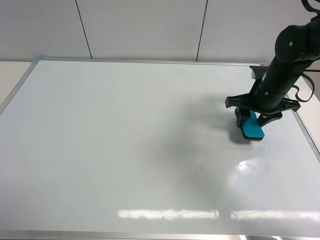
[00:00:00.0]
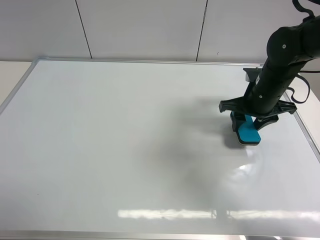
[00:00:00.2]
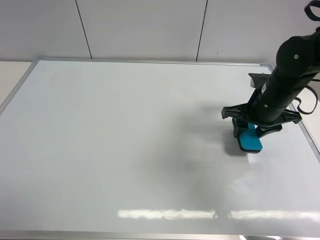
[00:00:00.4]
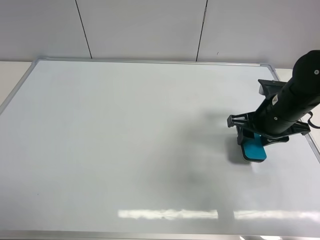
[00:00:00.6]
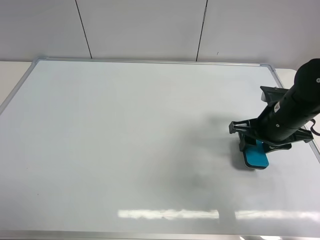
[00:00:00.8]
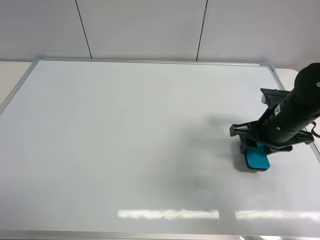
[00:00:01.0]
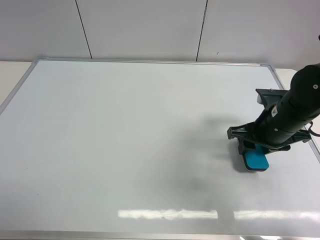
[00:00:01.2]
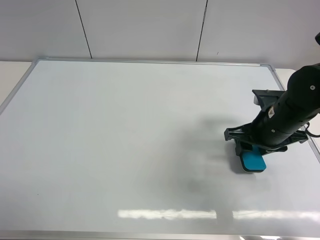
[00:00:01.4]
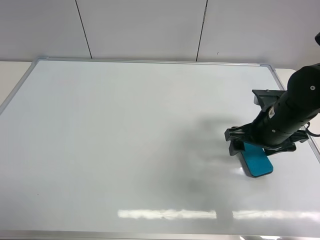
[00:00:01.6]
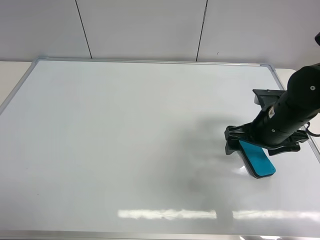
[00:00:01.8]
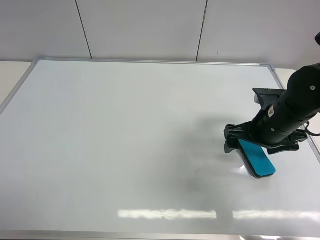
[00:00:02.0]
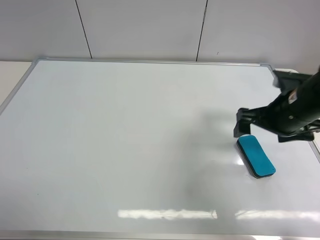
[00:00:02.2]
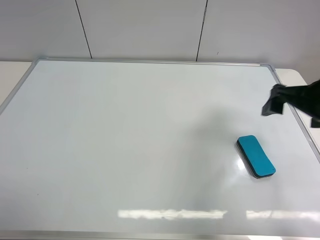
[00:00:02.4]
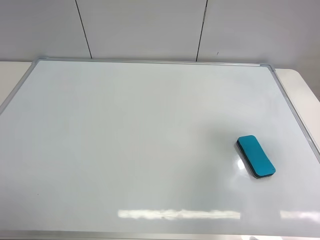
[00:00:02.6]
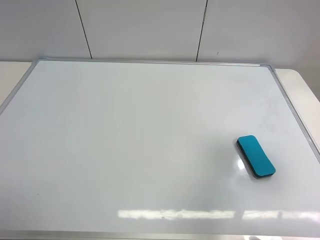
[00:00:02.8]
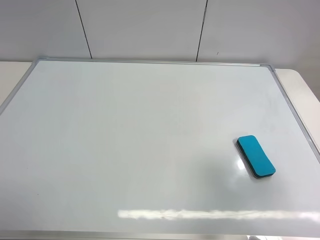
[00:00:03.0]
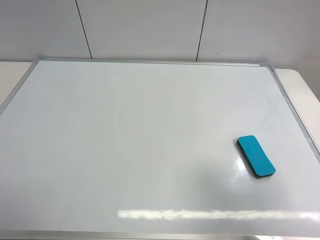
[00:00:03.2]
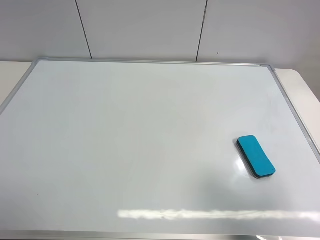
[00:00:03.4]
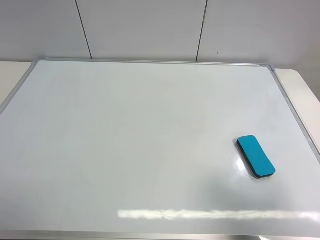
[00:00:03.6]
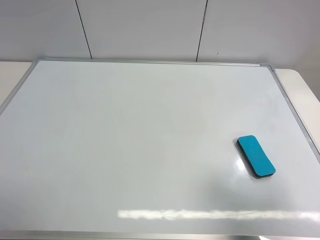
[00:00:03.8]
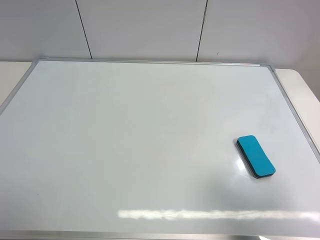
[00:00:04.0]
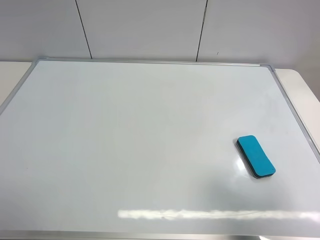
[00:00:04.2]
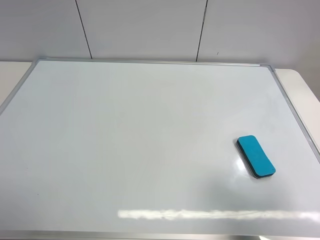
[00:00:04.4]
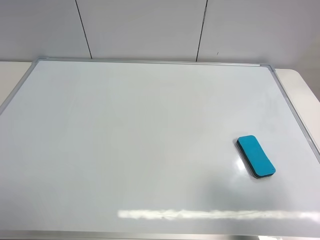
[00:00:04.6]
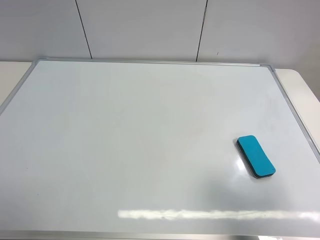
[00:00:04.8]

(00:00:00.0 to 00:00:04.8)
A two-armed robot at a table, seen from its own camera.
Task of the whole recording: use the left gripper to place the eraser in the right, use the right gripper to pick up the eraser, wipe the notes on the whiteboard clean, and then put it down.
Step, 00:00:00.0 - 00:00:01.6: Move the board eraser to the right of the whiteboard with right gripper.
00:00:00.0 - 00:00:01.6: The right gripper shifts about 10 cm backward, and opens.
00:00:01.6 - 00:00:03.2: The right gripper moves backward and upward, some 30 cm, and opens its fingers.
